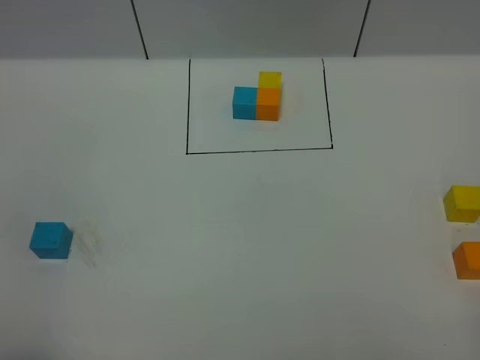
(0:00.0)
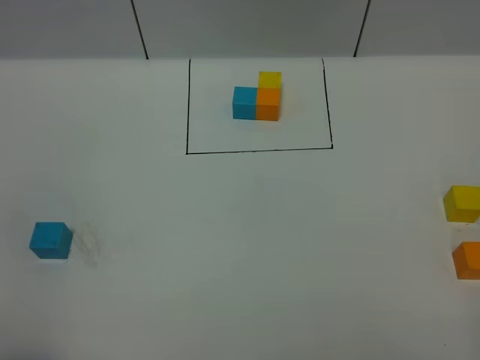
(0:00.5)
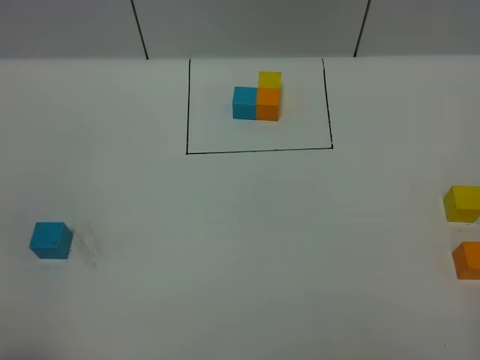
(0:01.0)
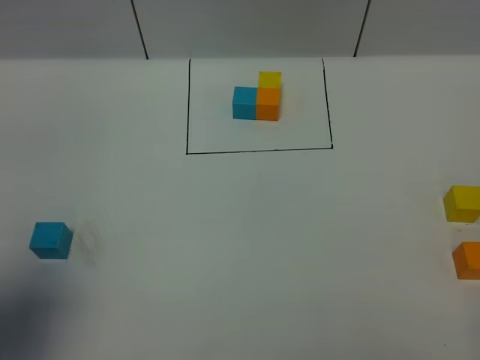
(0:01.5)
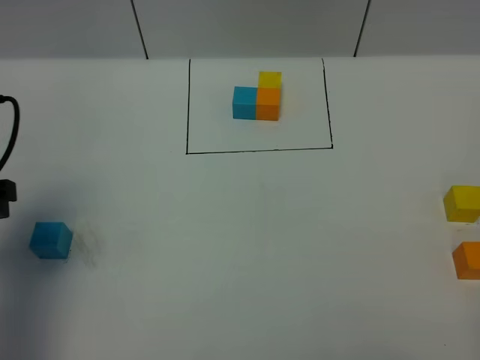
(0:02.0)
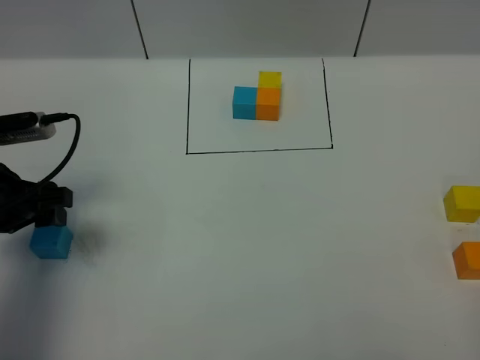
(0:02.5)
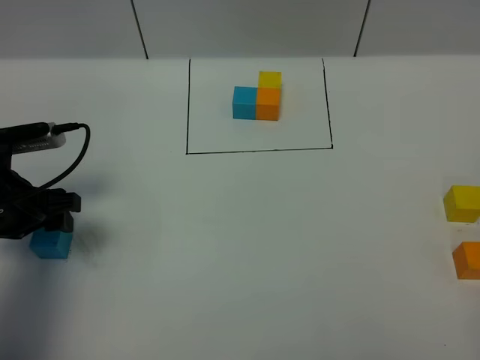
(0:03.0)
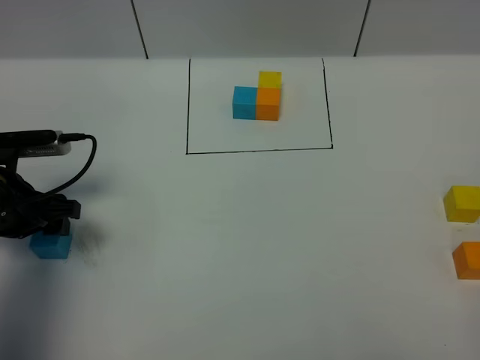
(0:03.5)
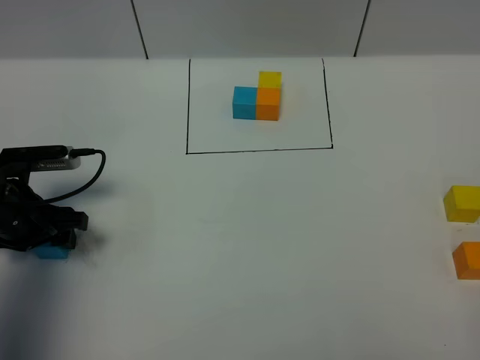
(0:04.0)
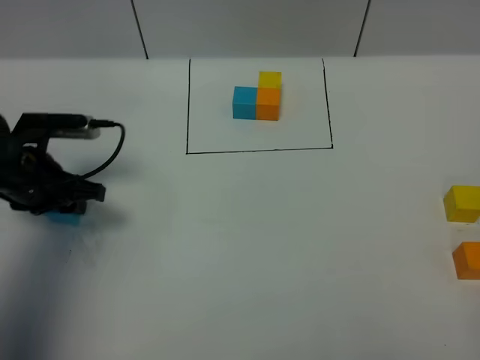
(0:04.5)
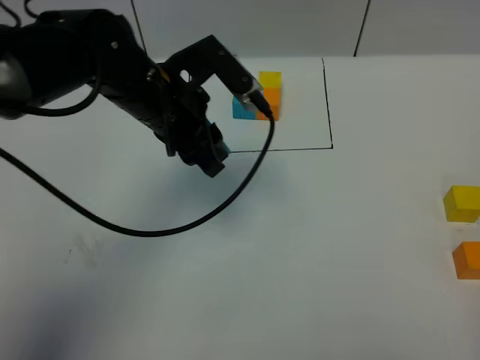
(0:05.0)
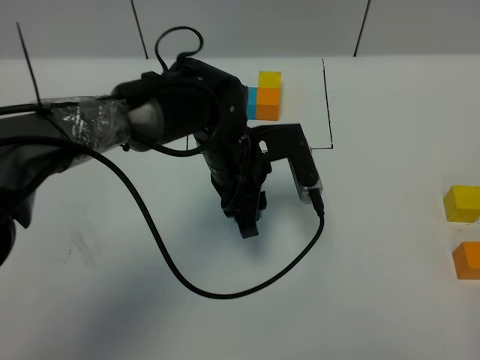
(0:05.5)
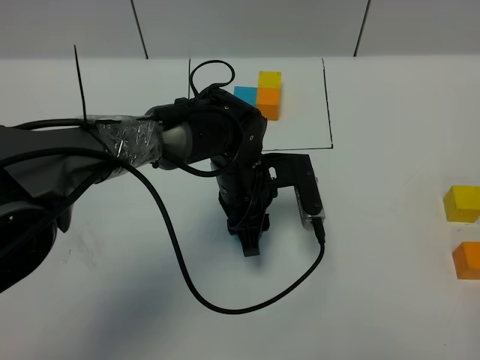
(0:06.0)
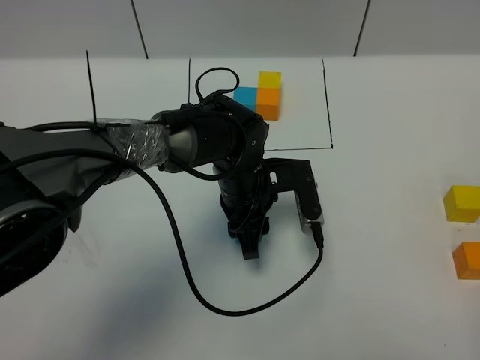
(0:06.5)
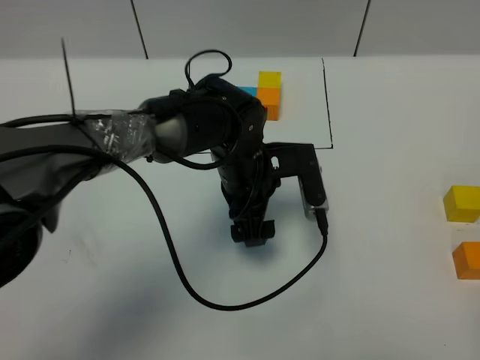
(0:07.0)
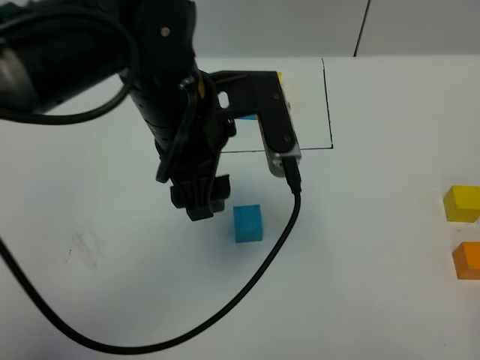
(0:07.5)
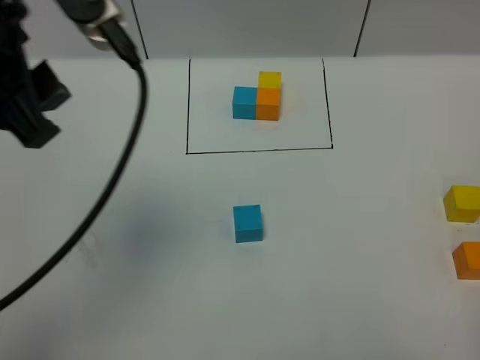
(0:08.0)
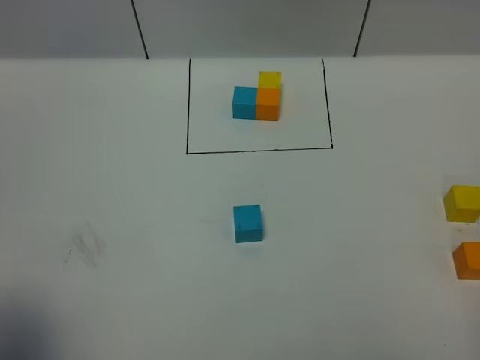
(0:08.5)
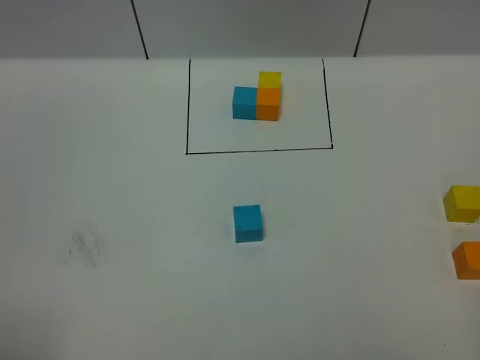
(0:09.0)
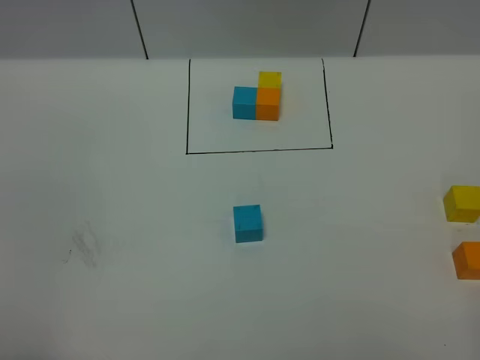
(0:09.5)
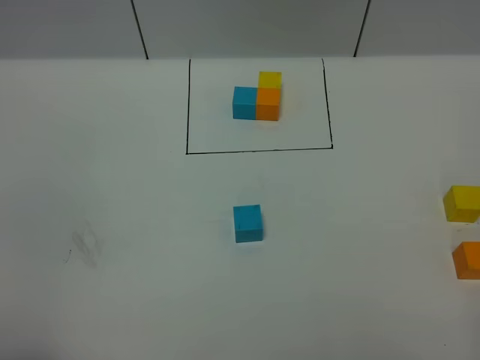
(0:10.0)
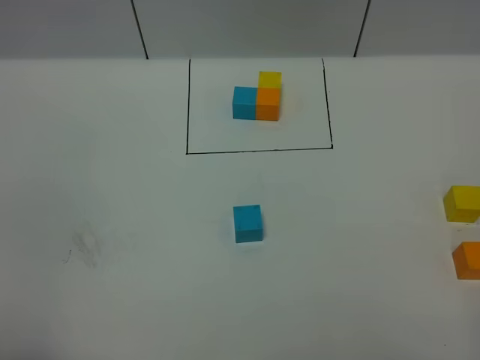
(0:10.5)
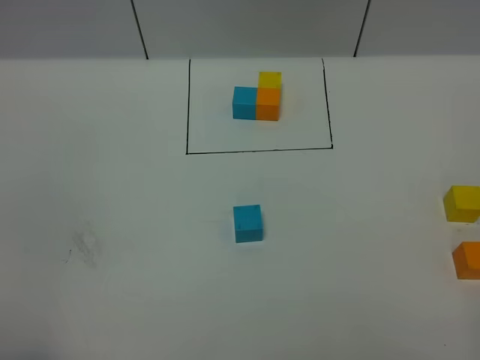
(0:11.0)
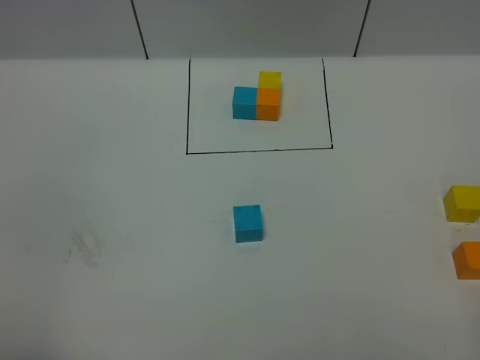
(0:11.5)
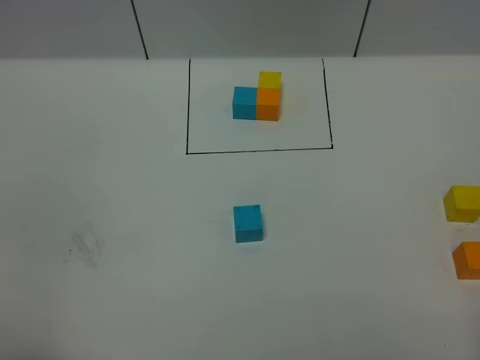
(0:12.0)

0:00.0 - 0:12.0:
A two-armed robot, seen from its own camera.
Task of the whole recording: According to the building block template in front, assemble the scattered blocks together.
Step, 0:02.0 - 0:07.0: Put the blue cube in the center of the table.
0:00.0 - 0:02.0: The left gripper goes roughly 25 cm forward.
0:02.0 - 0:04.0: The left gripper travels downward and forward by roughly 15 cm.
0:04.0 - 0:06.0: The left gripper goes approximately 30 cm to the right, and closes.
0:06.0 - 0:08.0: The left gripper shifts some 35 cm upward and to the left, and opens.
0:08.0 - 0:10.0: The left gripper goes roughly 30 cm backward, downward and to the left.

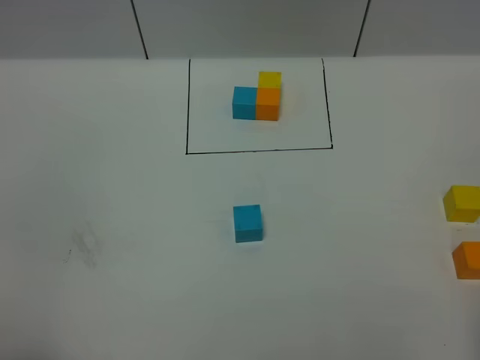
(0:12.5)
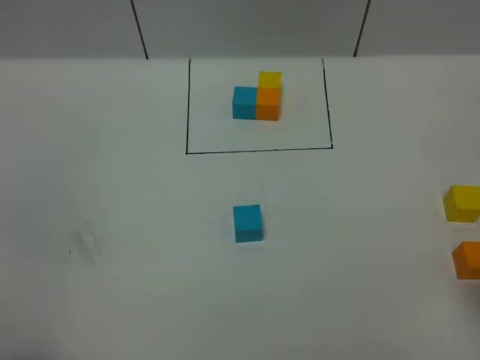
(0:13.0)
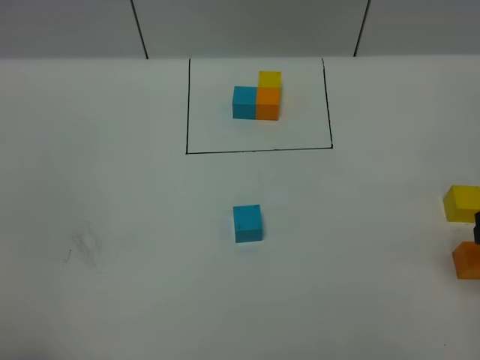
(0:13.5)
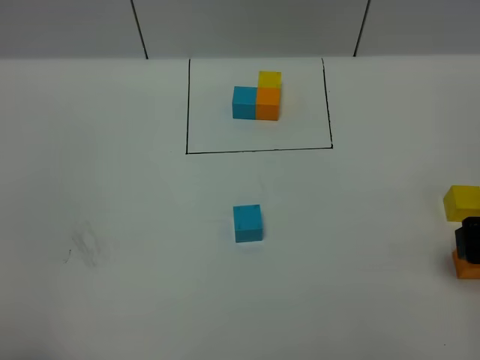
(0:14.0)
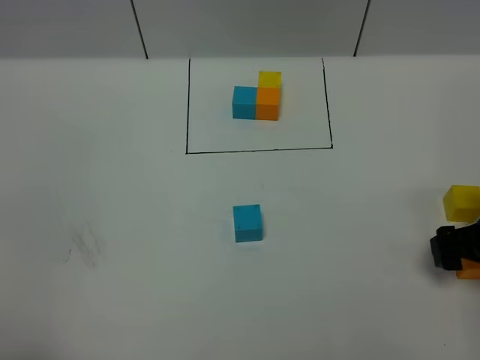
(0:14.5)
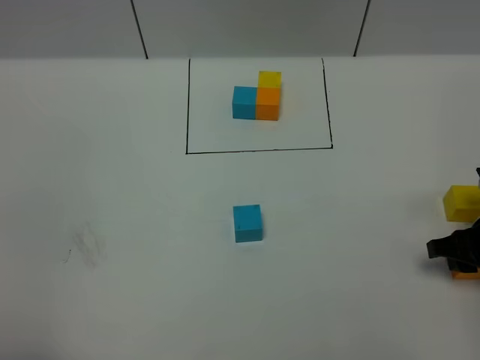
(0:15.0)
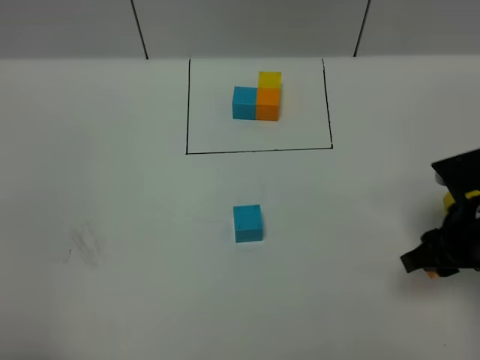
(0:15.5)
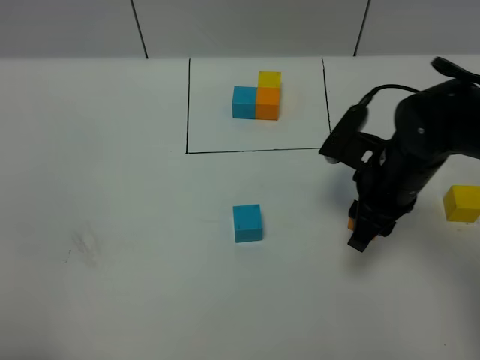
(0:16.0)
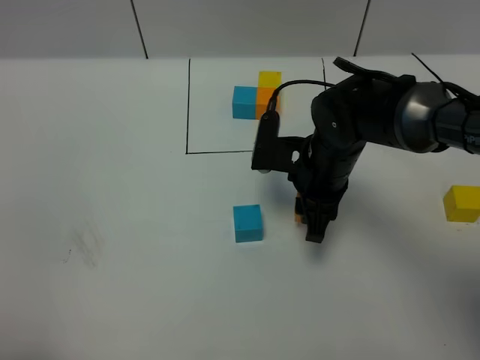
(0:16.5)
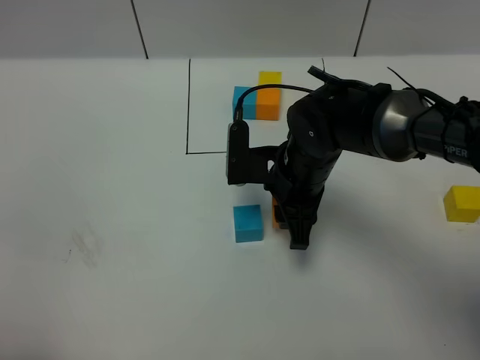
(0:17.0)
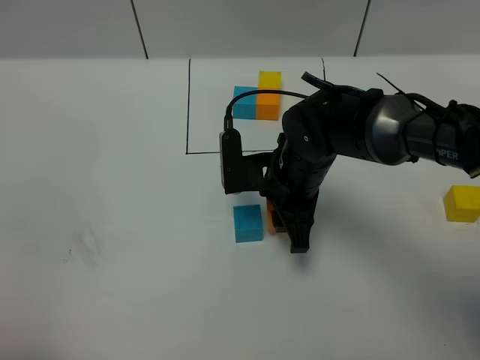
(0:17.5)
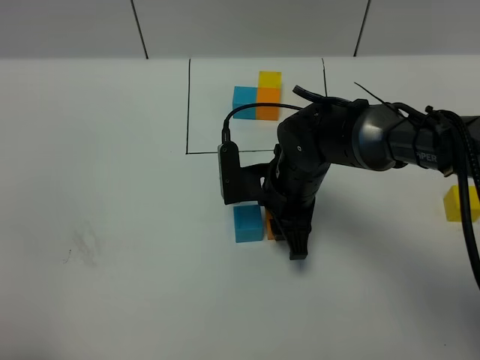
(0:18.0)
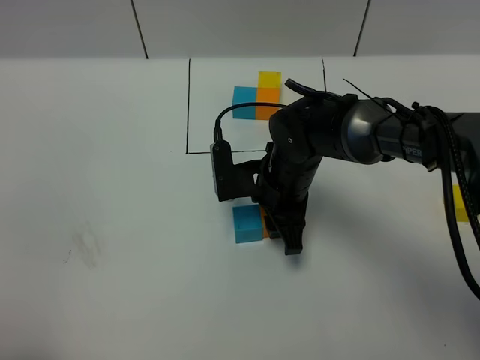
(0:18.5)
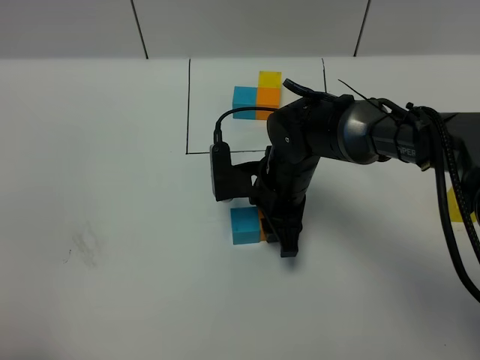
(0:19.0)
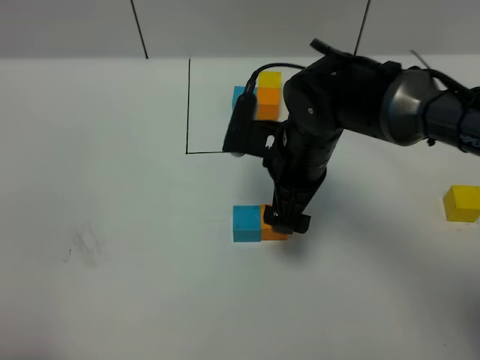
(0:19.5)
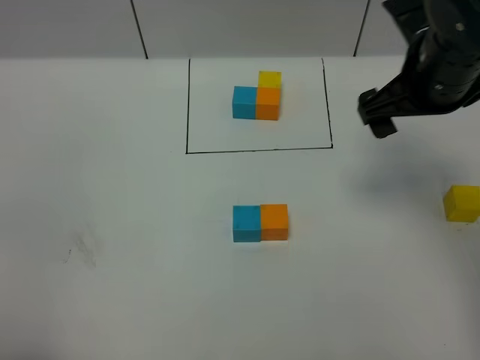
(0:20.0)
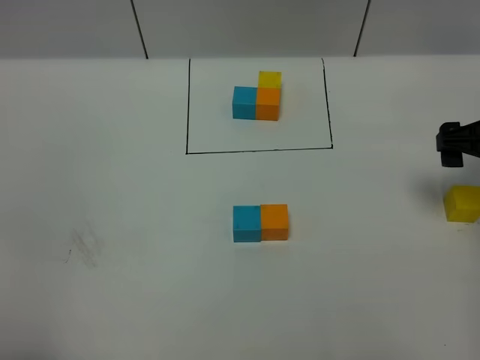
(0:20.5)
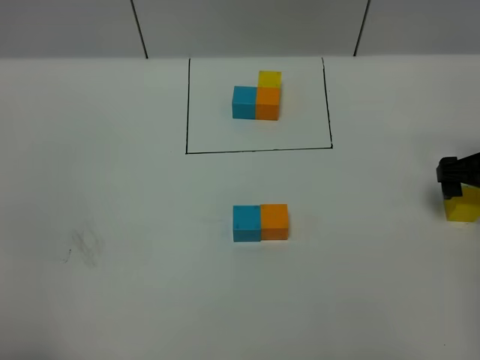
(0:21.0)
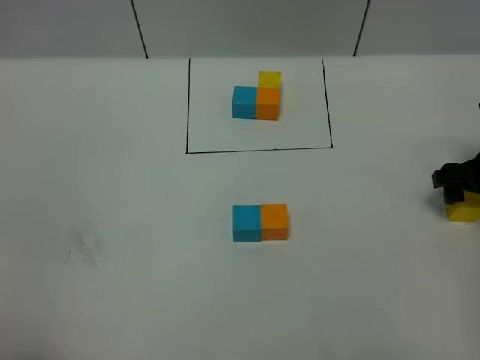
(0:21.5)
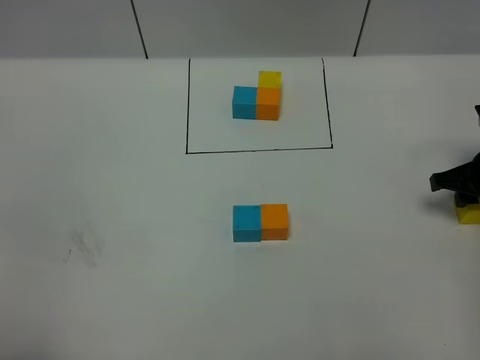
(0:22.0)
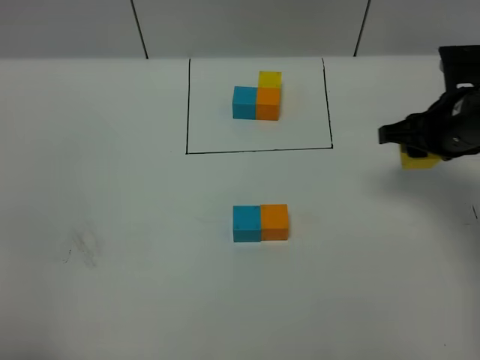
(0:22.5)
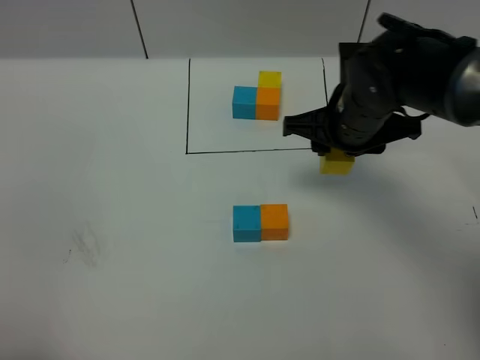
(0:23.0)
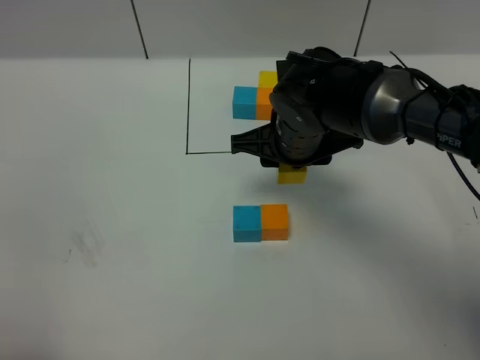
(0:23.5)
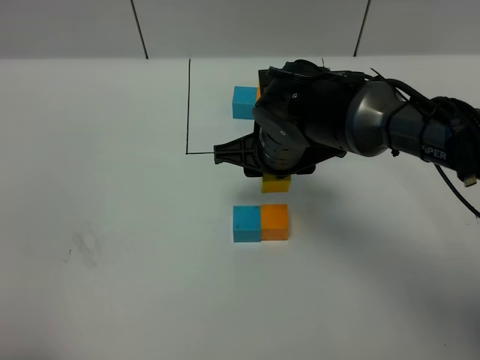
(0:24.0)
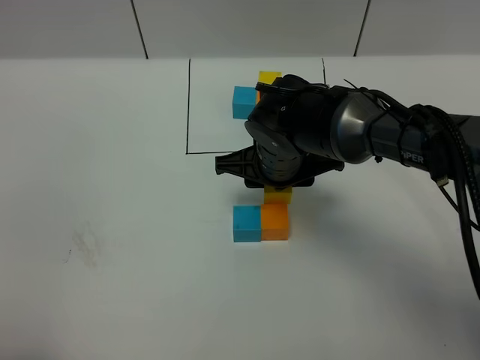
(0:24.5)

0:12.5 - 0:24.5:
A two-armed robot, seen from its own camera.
Task of the whole recording: According to the building block template in front, assemble the scattered blocks together.
Step, 0:12.5 - 0:19.0: Put the orange cube on the right of the blue cube.
0:12.5 - 0:14.5: The right gripper heads forward and downward, covering about 25 cm.
0:14.5 - 0:16.5: The right gripper travels to the left by roughly 20 cm, and closes its fingers.
0:16.5 - 0:18.5: The right gripper ends up some 5 cm from where it was.
0:18.5 - 0:20.5: The right gripper travels to the right by about 25 cm, and opens up.
0:20.5 - 0:22.5: The right gripper goes about 5 cm to the left, and closes.
0:22.5 - 0:24.5: The right gripper heads to the left, covering some 20 cm.

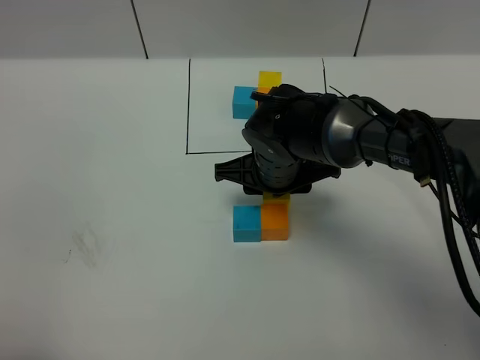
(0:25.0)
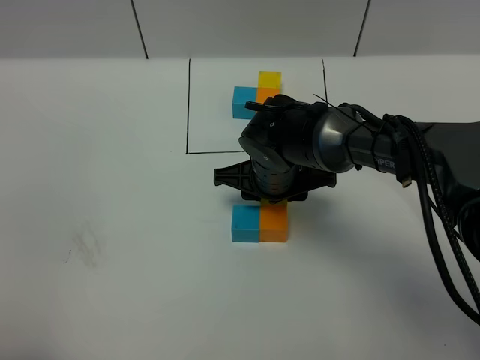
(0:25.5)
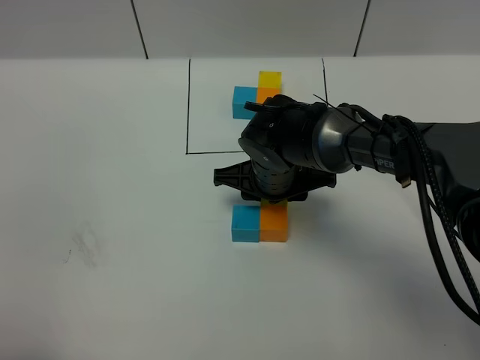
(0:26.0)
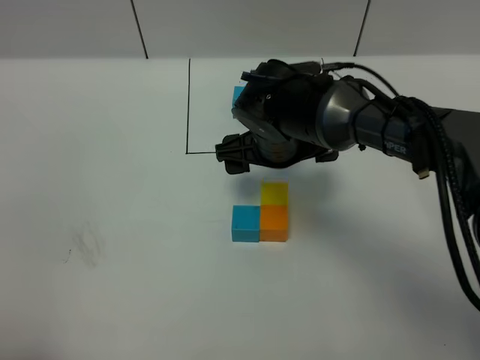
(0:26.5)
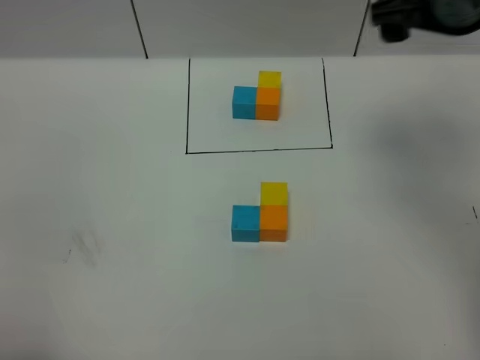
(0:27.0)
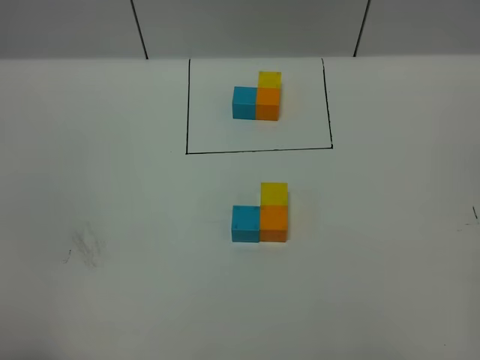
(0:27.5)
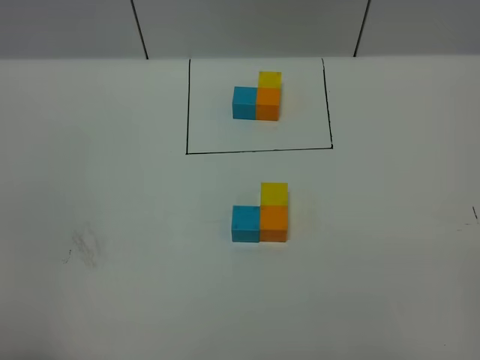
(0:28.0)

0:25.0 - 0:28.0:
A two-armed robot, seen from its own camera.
Task of the whole recording: According to the building block template in front, assemble the scattered blocks together.
0:25.0 - 0:26.5: The right gripper opens its fingers.
0:26.5 - 0:28.0: The right gripper shifts about 50 cm backward, to the right and upward.
